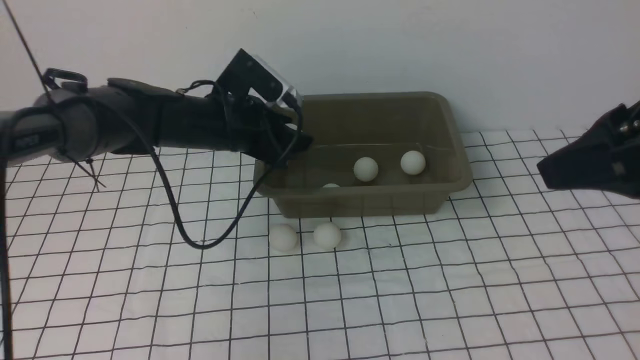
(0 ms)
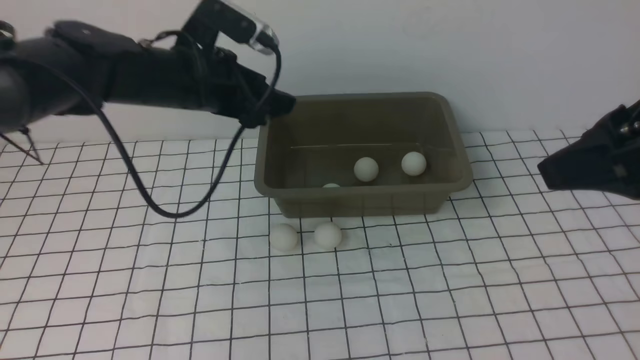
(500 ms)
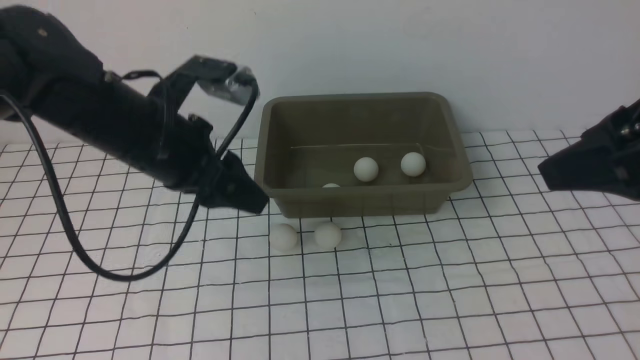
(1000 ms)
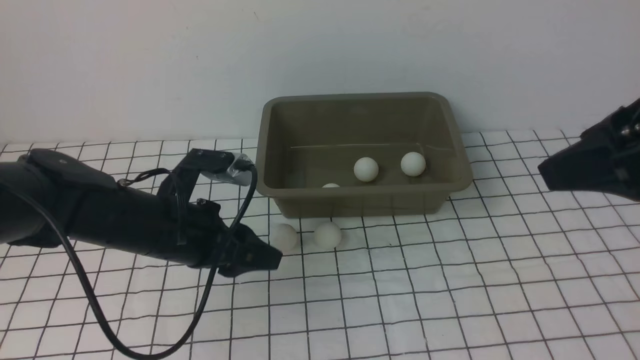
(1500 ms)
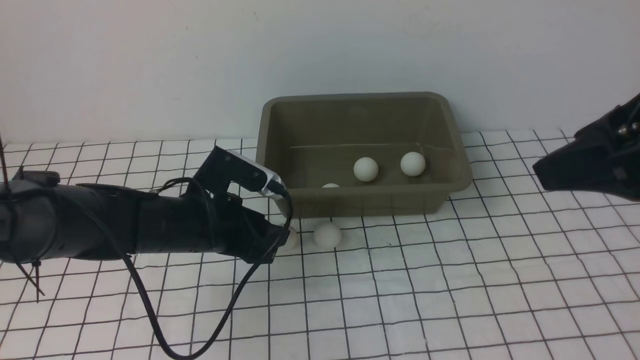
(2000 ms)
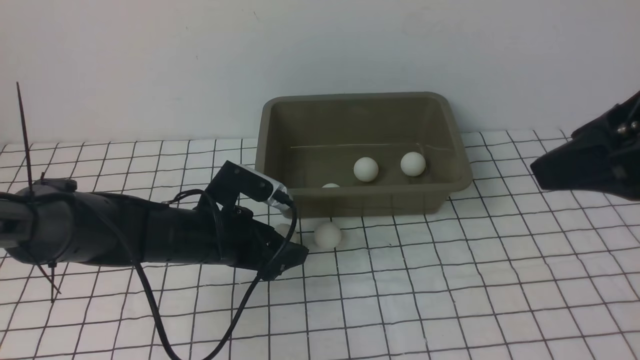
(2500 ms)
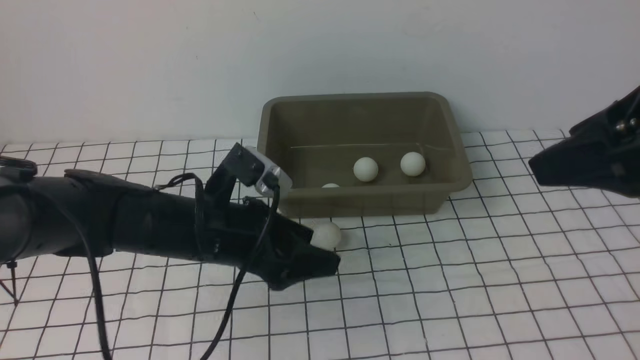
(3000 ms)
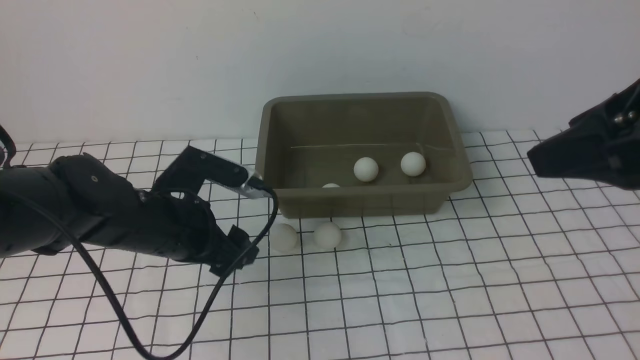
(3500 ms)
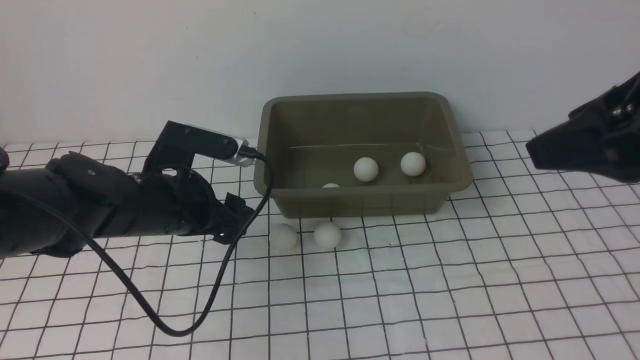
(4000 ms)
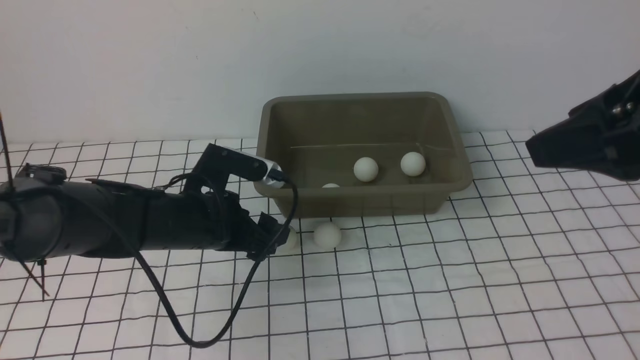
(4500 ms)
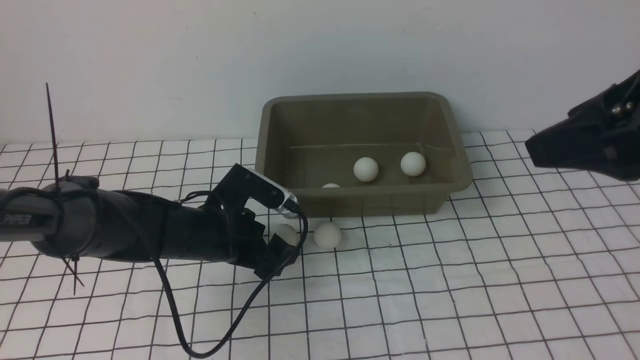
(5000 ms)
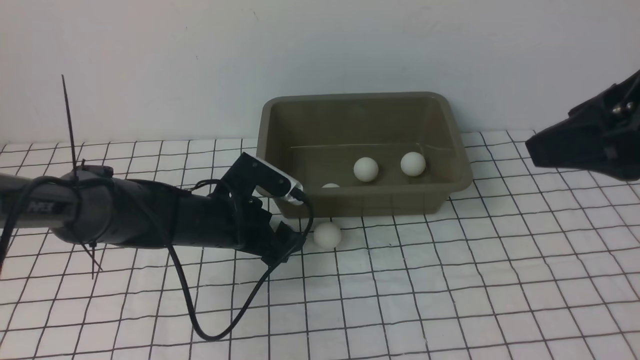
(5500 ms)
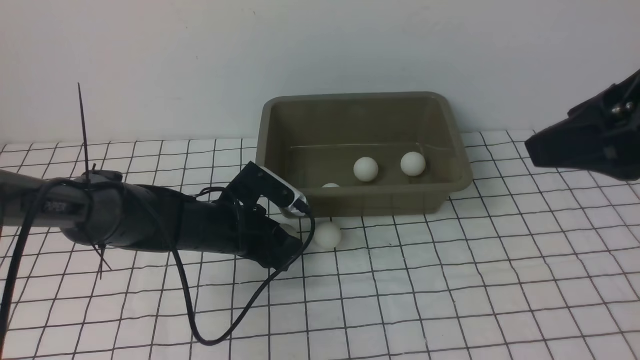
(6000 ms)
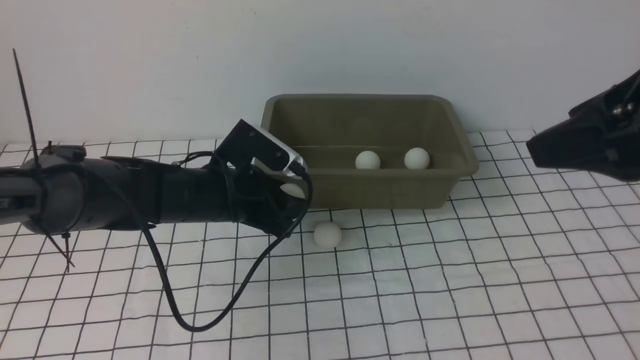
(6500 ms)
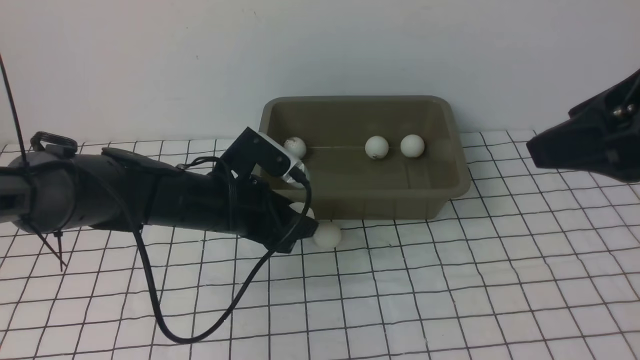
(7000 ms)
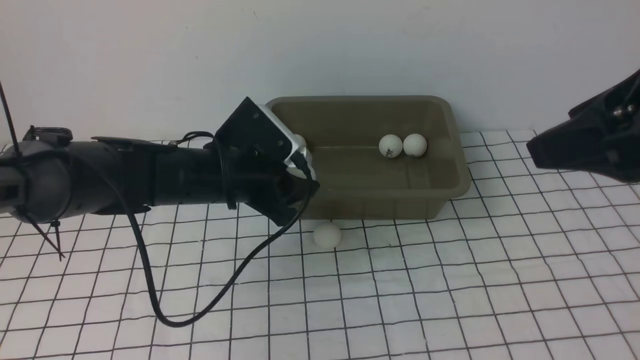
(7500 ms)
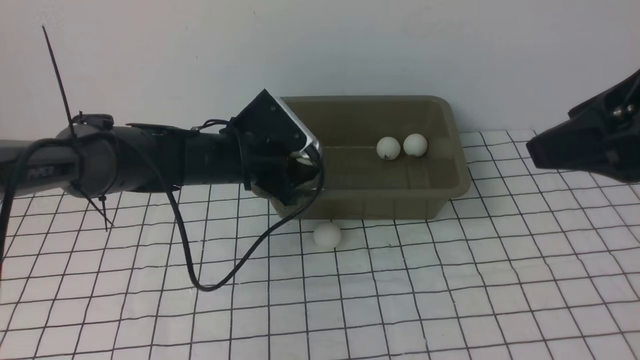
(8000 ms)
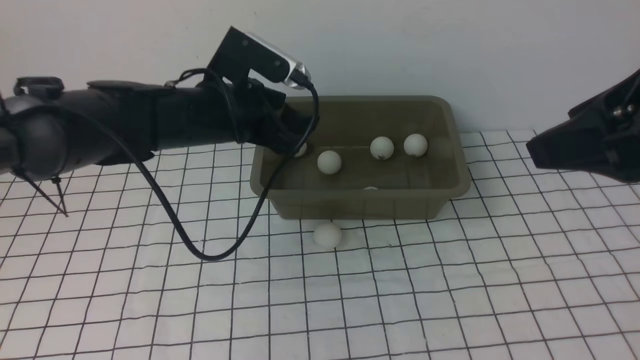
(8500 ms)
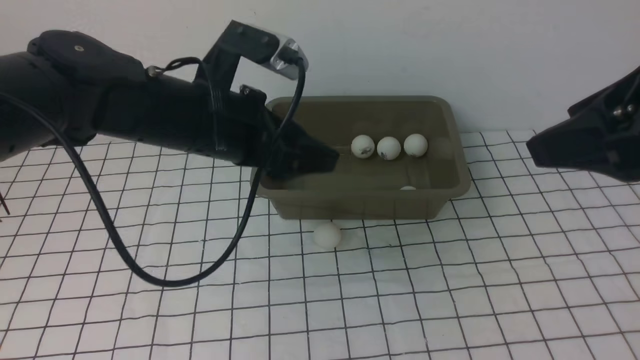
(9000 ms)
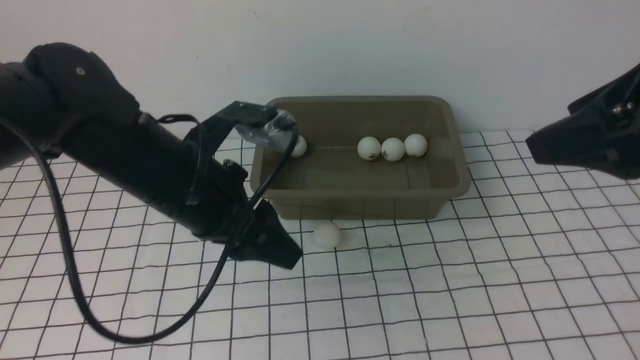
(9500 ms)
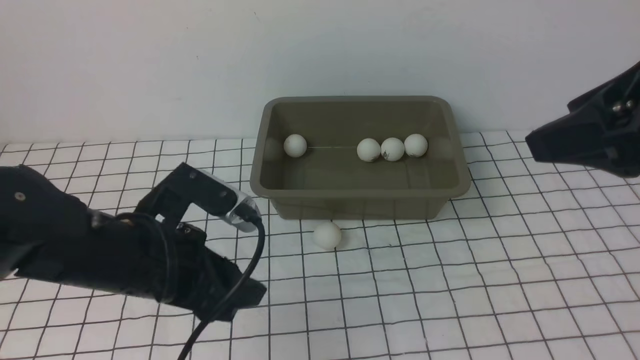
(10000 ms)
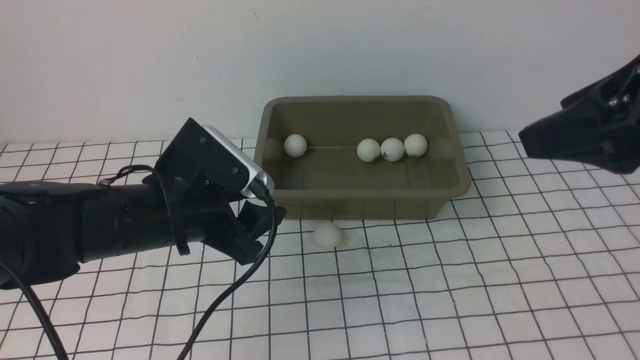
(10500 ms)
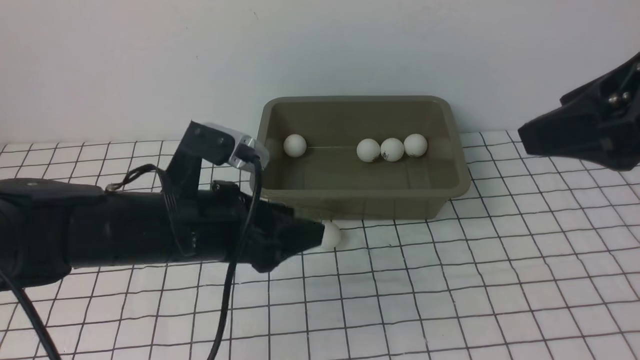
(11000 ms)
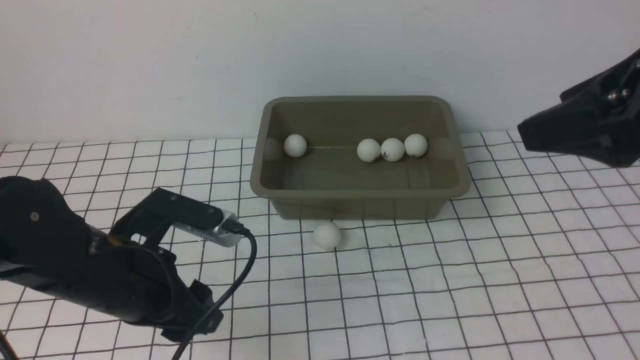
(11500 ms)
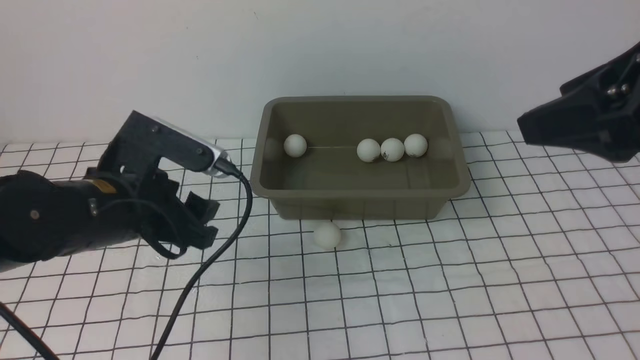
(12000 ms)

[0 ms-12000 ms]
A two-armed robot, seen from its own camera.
Step, 500 ms to 6500 ms: use the left arm to clamp the table tennis ball closest to it.
Step, 7000 ms to 8000 ms: use the left arm to put the table tennis ball into the box.
0 ms to 2000 ms: The left gripper heads backward, covering some 10 cm.
2000 ms to 4000 ms: The left gripper opens its fingers.
4000 ms to 6000 ms: The left gripper moves downward, roughly 10 cm, and closes up.
6000 ms to 8000 ms: The left gripper is displaced upward by roughly 10 cm.
8000 ms to 10000 ms: The left gripper is displaced backward by roughly 15 cm.

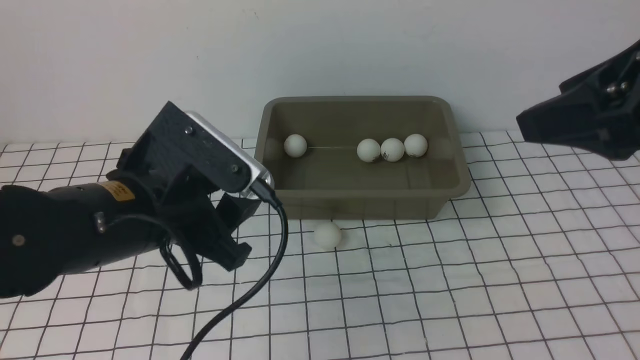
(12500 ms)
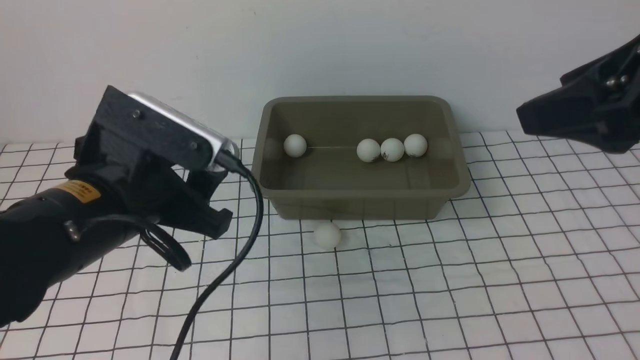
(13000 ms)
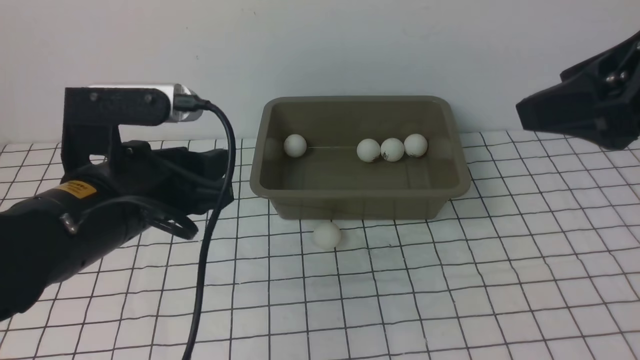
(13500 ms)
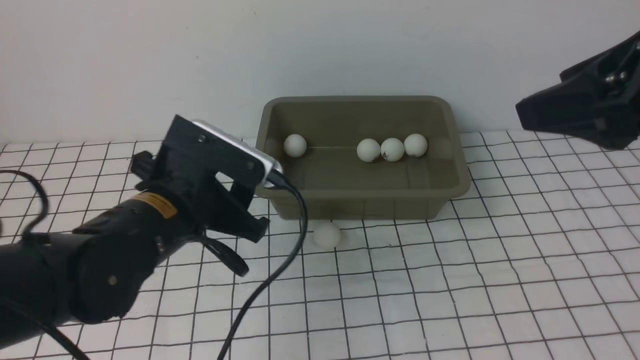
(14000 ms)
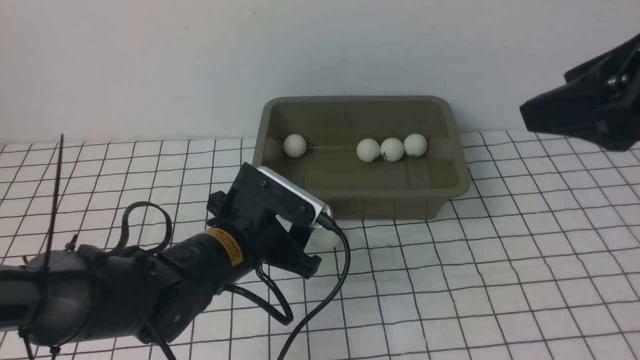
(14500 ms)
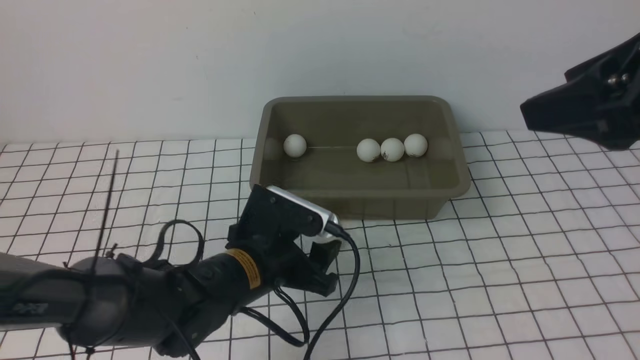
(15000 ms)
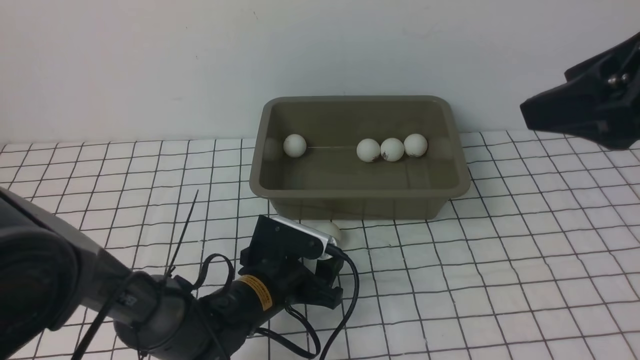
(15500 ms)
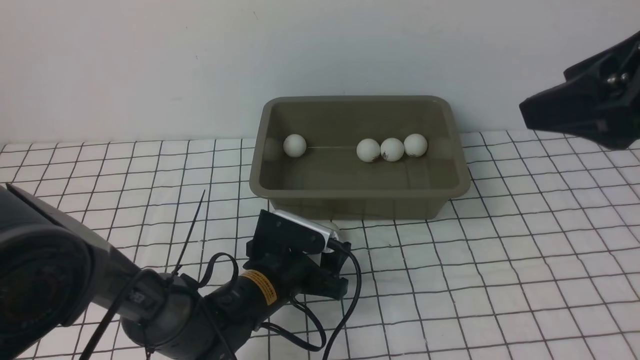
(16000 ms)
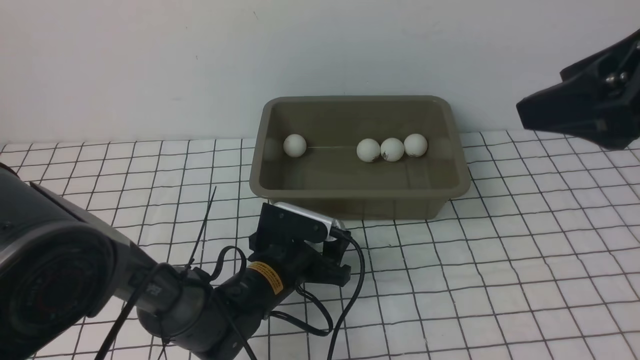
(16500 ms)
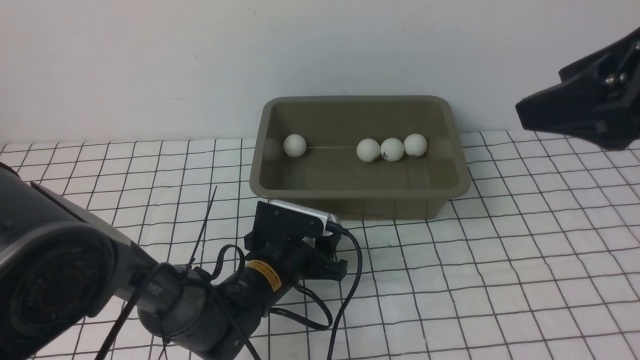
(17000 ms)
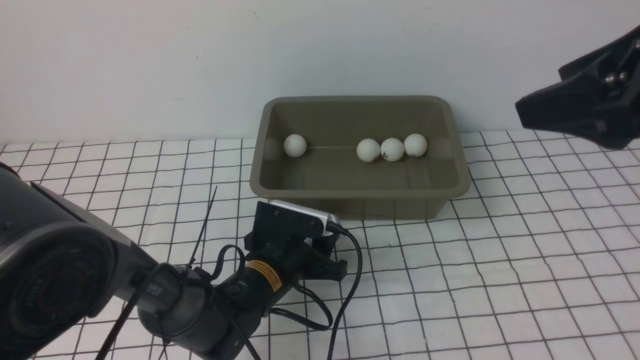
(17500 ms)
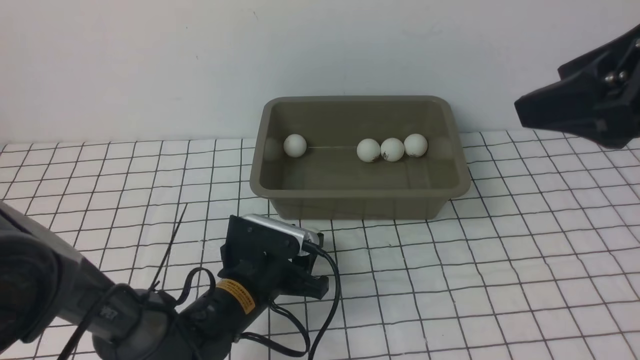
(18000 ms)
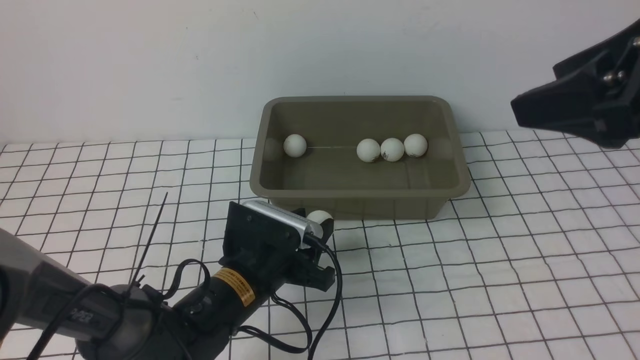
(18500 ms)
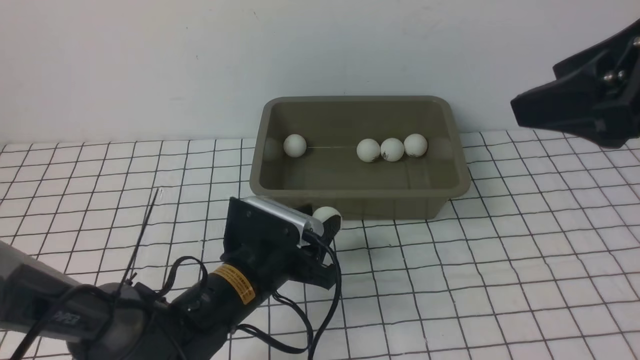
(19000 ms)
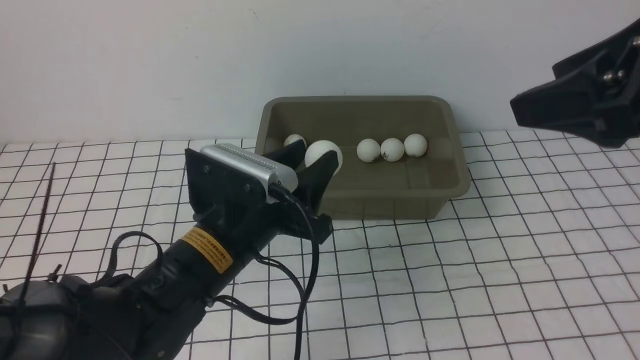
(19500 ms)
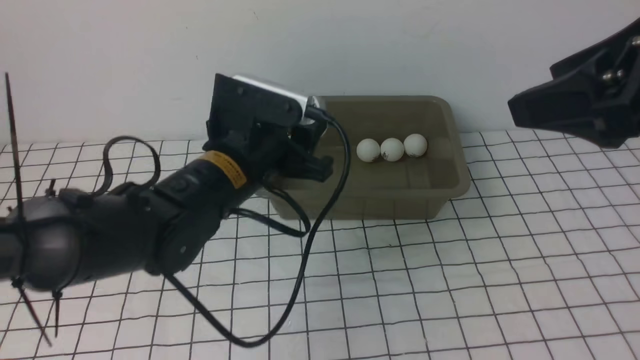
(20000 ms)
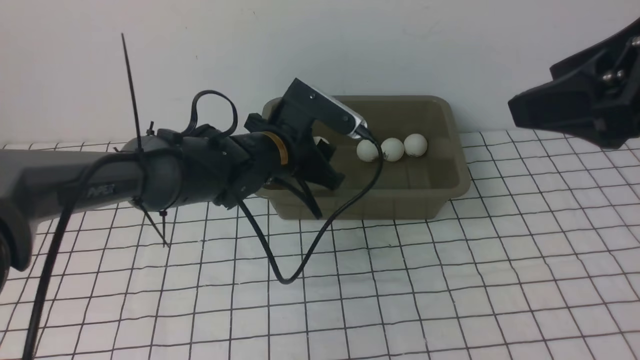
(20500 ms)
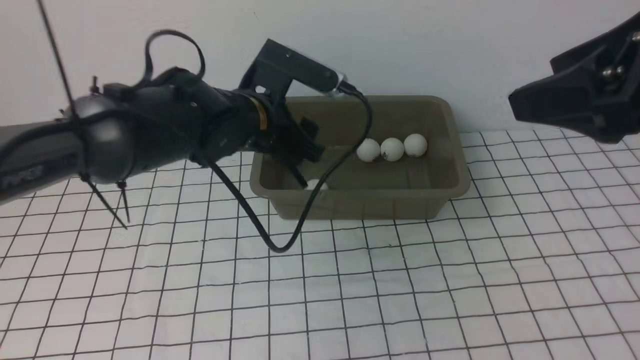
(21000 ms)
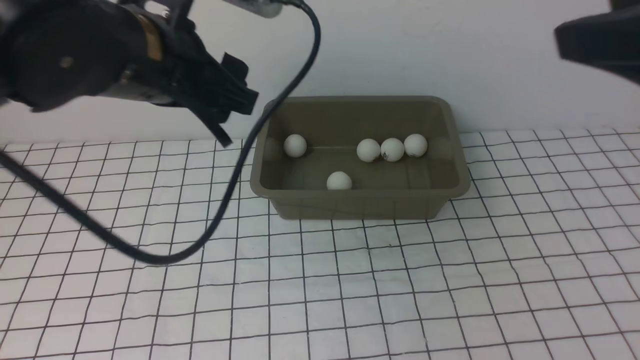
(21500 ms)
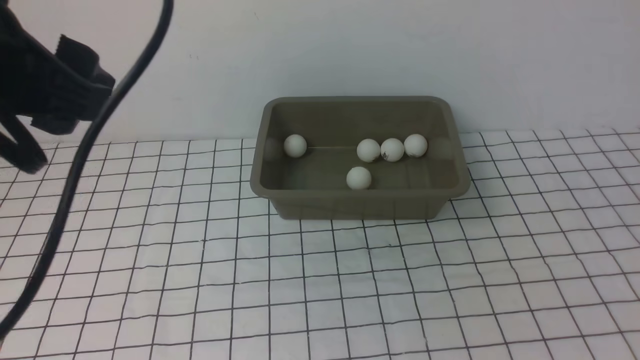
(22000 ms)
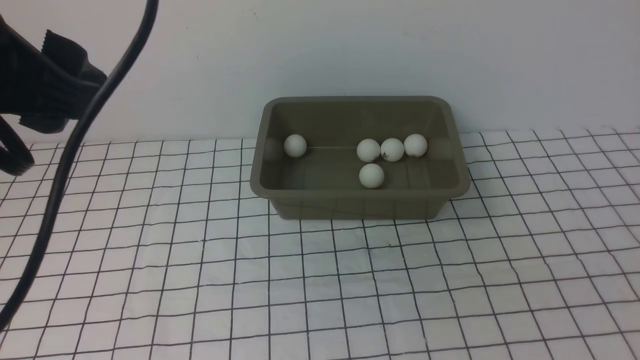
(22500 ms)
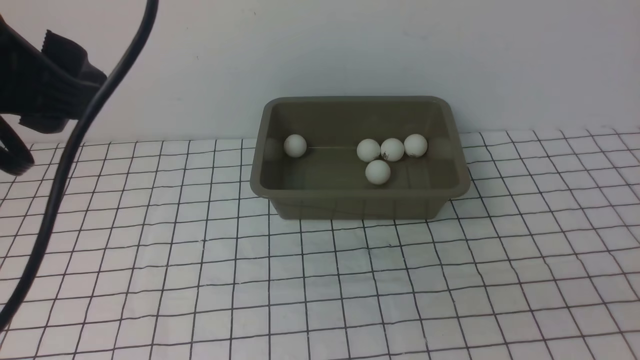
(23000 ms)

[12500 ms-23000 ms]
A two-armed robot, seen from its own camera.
Step, 12500 ms to 18000 ms: use the left arm to clamp the table tennis ball closest to it.
Step, 18500 ms to 21000 ms: use the left arm to put the table tennis ball into the box.
12500 ms to 14500 ms: The left gripper shifts about 10 cm downward and to the right.
14500 ms to 16500 ms: The left gripper goes roughly 10 cm downward.
16500 ms to 19000 ms: The left gripper is displaced upward by roughly 5 cm, and closes.
19000 ms to 21000 ms: The left gripper moves upward and forward, some 20 cm, and opens.
21000 ms to 23000 ms: The left gripper goes approximately 25 cm backward, upward and to the left; the right gripper heads backward, covering approximately 20 cm.
